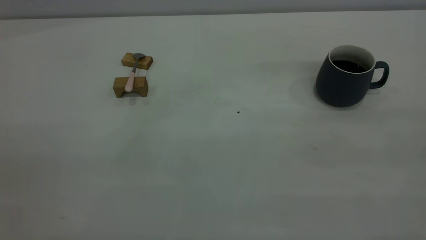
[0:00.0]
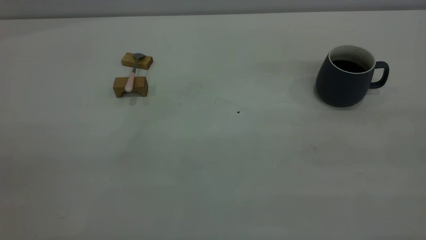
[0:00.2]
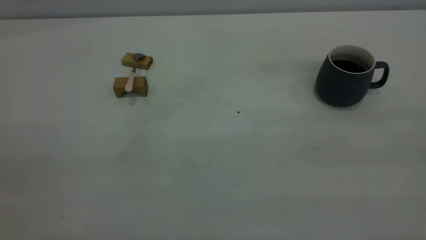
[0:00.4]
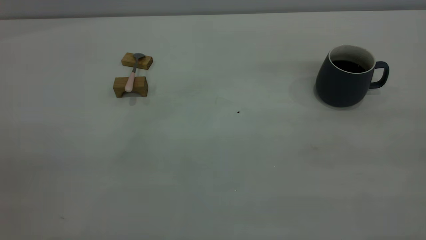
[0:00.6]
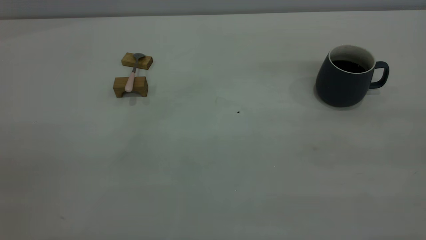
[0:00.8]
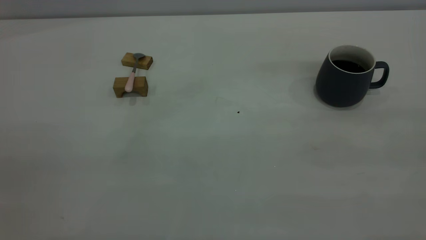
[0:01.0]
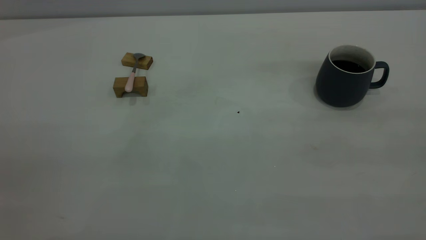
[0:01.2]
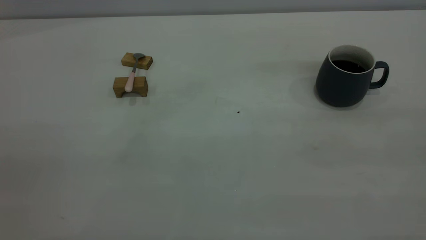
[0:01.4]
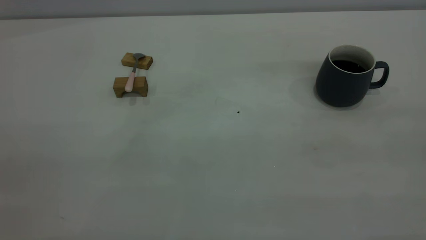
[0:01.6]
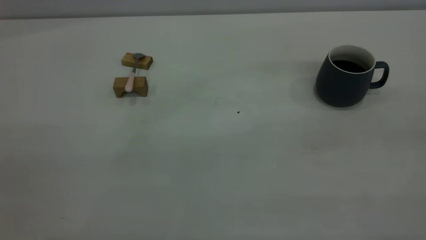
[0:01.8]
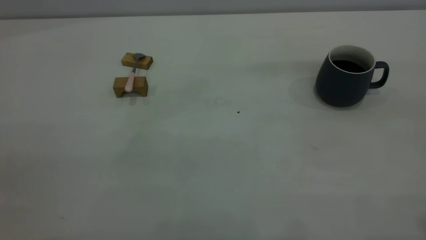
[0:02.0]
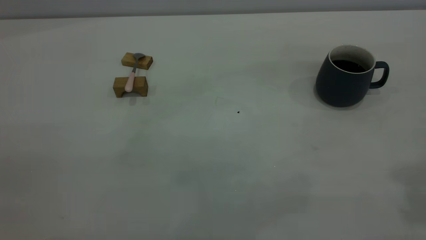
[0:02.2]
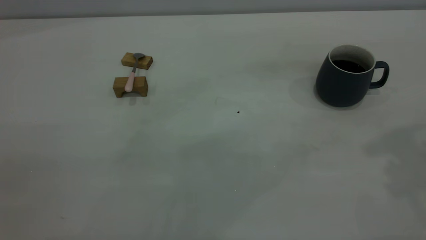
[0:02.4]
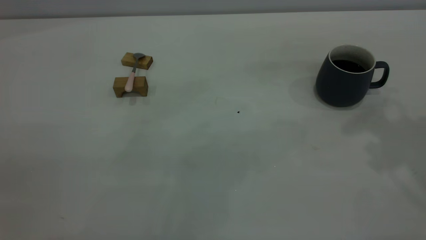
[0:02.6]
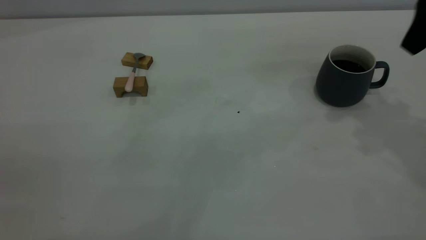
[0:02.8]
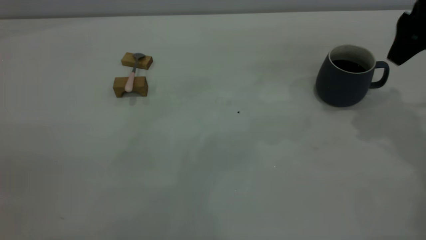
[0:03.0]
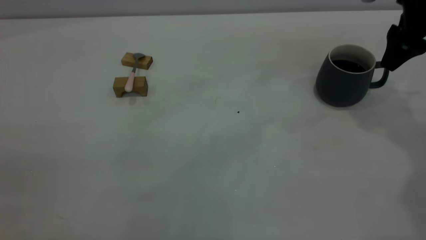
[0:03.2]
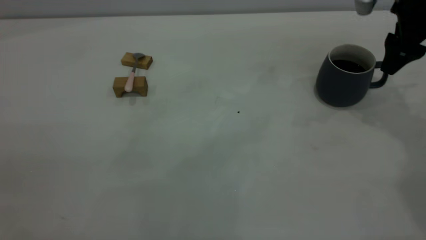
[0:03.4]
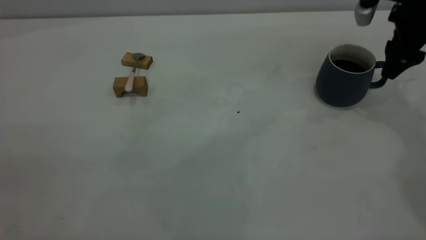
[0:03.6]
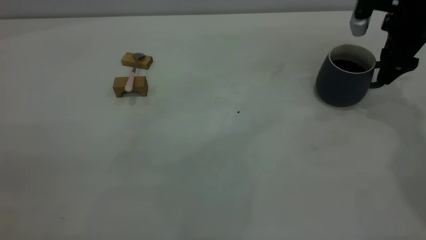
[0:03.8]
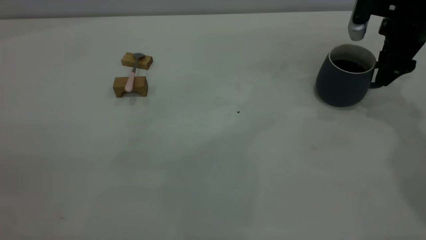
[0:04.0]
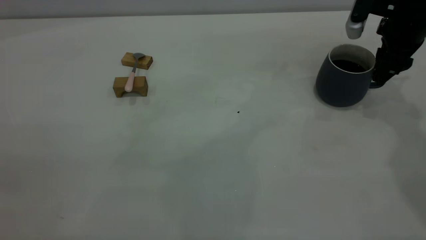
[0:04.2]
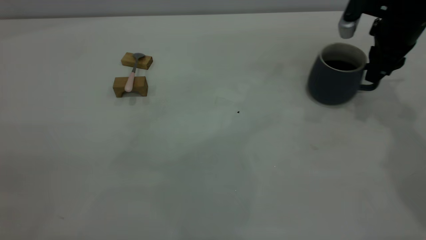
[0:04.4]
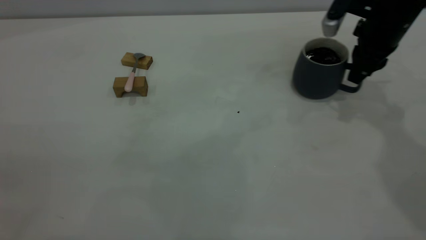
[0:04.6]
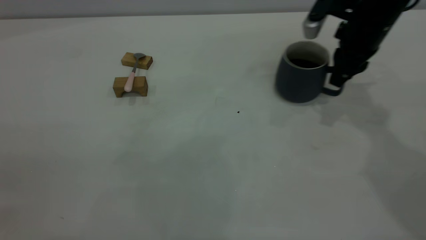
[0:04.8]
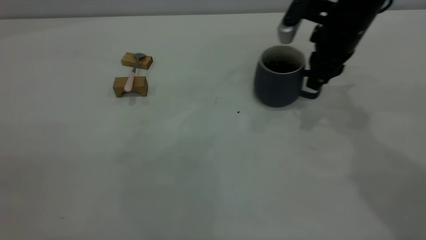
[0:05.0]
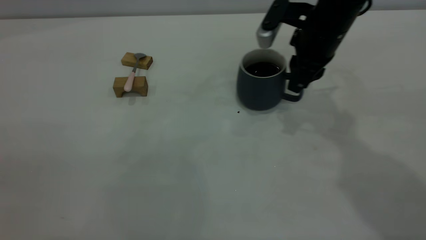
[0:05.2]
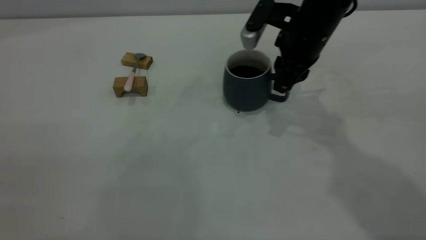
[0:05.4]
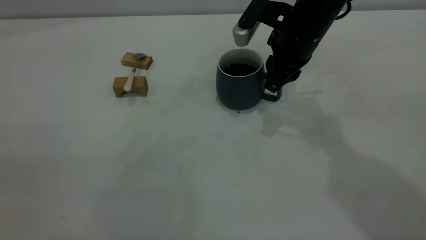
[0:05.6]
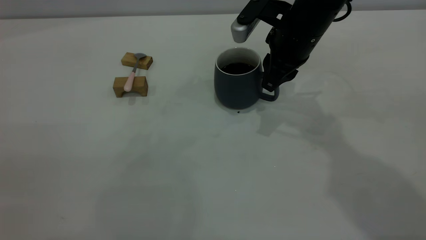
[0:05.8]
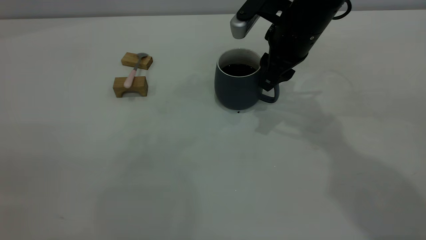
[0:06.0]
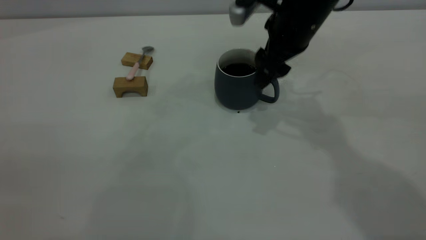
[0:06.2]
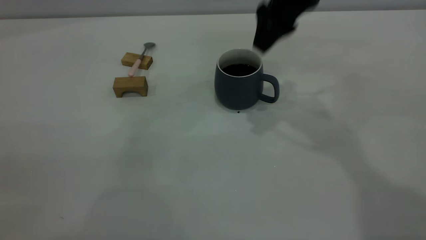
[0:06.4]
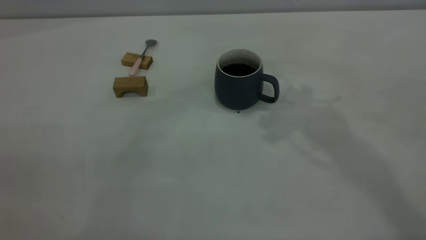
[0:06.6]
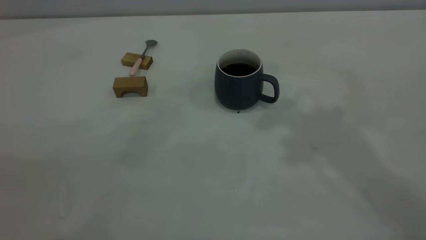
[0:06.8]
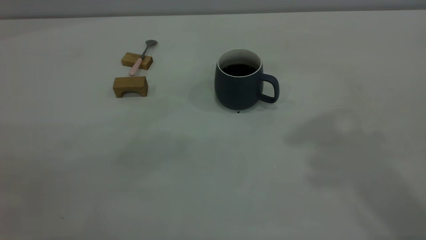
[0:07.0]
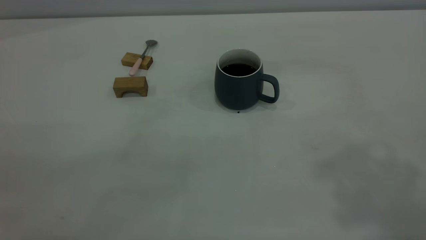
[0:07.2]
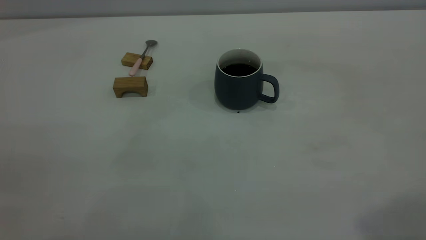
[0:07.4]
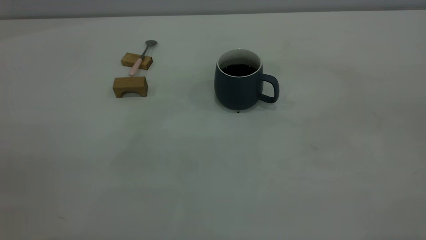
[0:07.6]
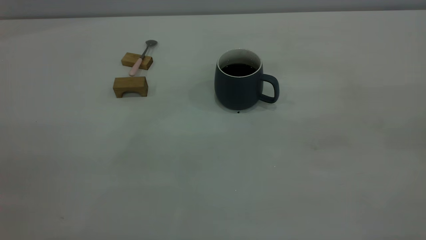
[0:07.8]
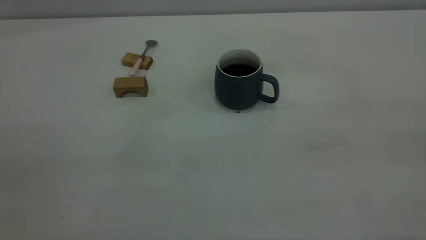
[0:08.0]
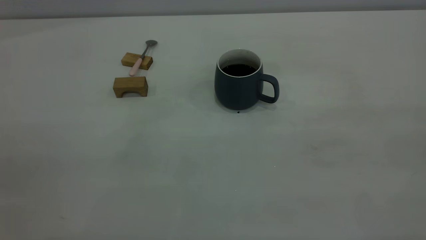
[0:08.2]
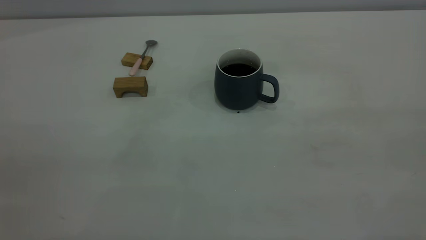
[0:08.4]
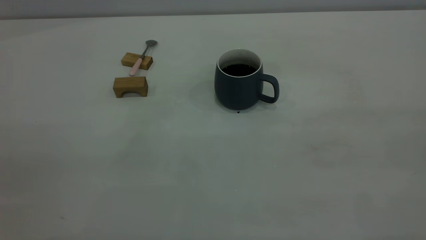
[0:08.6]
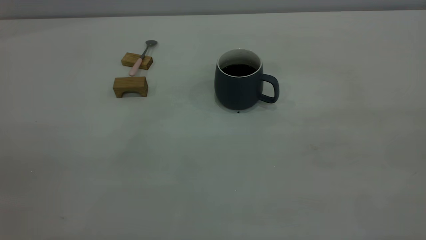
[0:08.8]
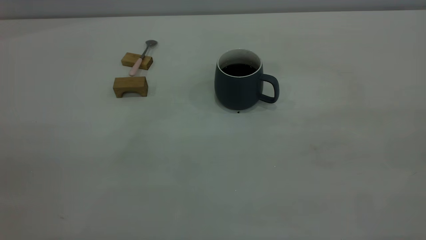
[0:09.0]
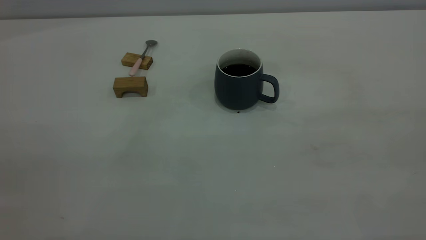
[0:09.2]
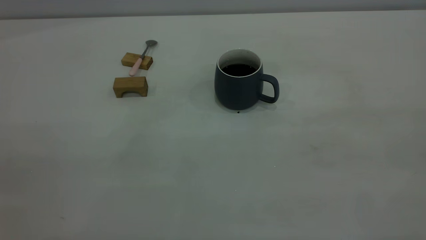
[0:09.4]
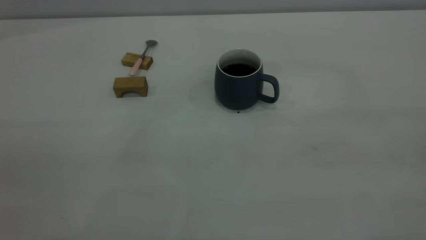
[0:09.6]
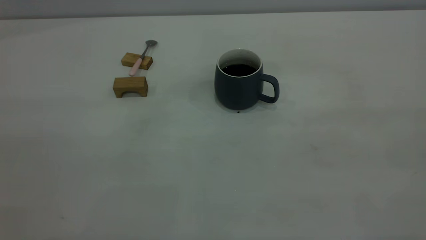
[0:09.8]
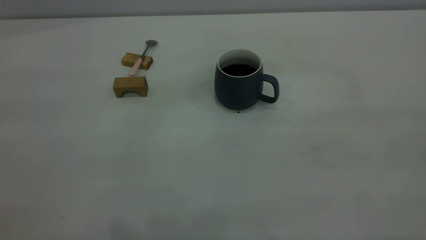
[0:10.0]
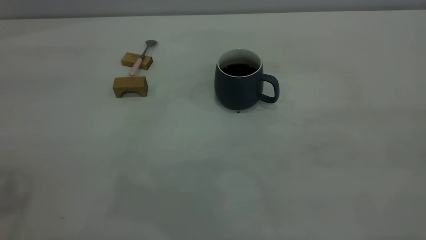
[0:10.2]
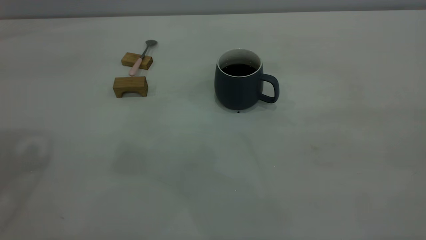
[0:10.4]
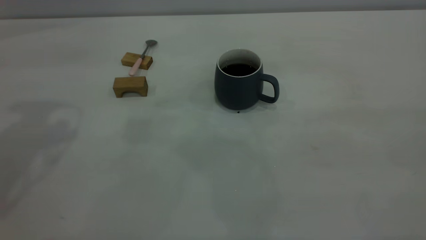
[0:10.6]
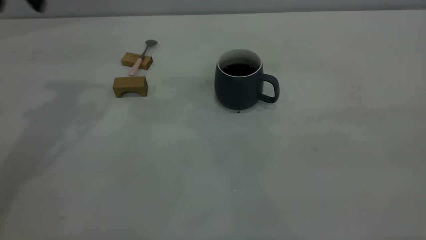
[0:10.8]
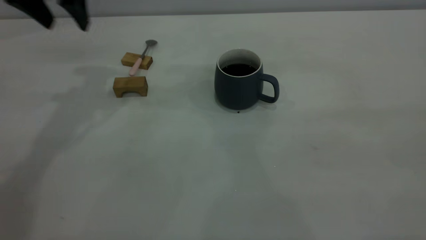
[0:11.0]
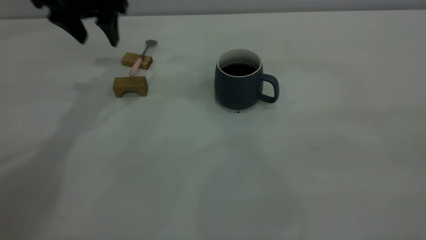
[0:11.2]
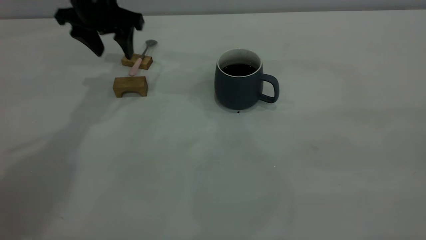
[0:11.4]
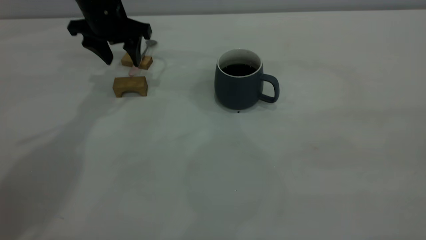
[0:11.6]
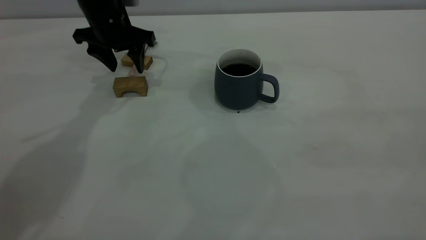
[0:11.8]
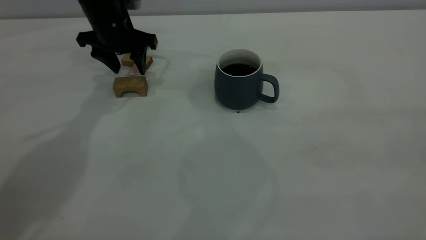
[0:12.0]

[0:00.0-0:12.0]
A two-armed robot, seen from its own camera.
Step, 0:00.0 to 0:06.2: Move the cup with coffee to the center of view.
0:00.0 to 0:01.6: Both grippers stay about where they are.
0:01.6 to 0:03.0: The right gripper moves forward, approximately 35 cm, and opens up.
0:03.0 to 0:04.4: The right gripper is displaced downward and forward by roughly 10 cm, and closes up.
0:04.4 to 0:06.0: The right gripper travels to the left by some 15 cm, and opens its fingers.
0:06.0 to 0:07.6: The right gripper goes about 50 cm backward, upward and to the right, and opens its fingers.
0:10.4 to 0:12.0: The left gripper goes some 35 cm downward, forward and to the right.

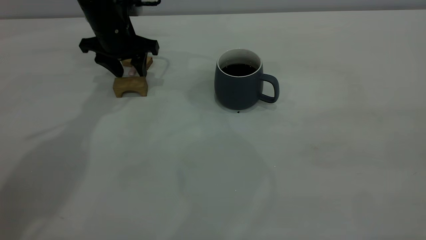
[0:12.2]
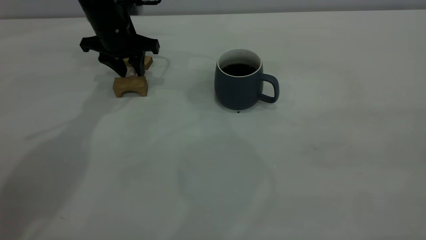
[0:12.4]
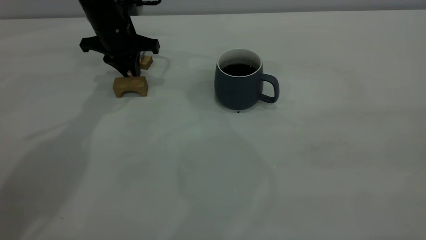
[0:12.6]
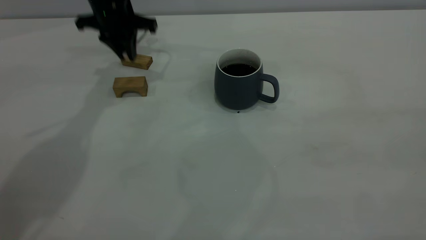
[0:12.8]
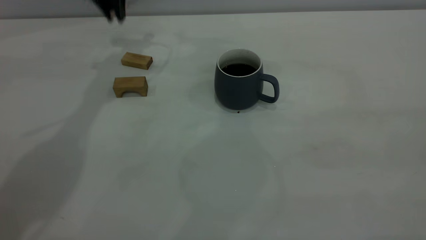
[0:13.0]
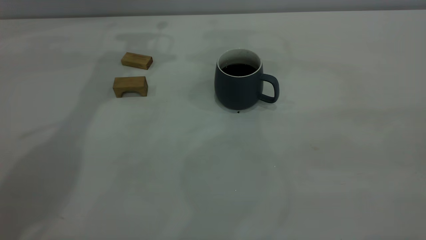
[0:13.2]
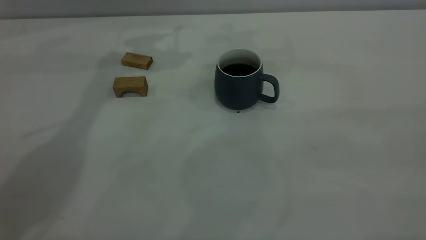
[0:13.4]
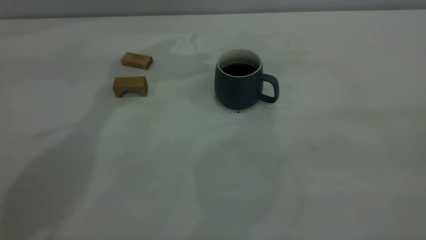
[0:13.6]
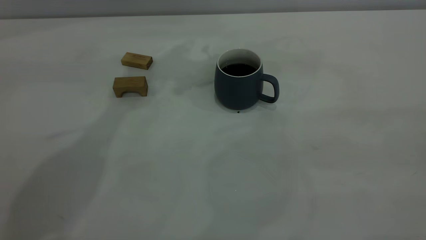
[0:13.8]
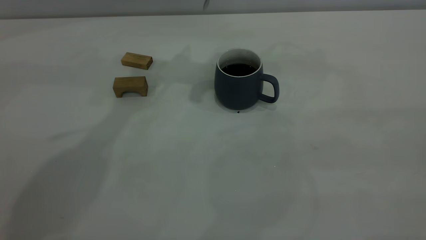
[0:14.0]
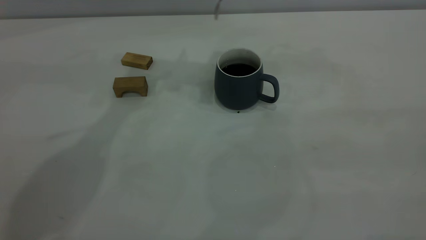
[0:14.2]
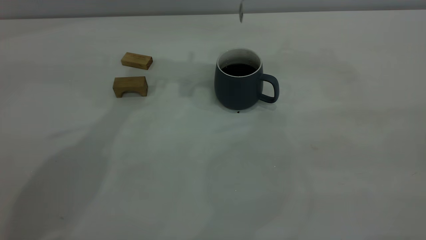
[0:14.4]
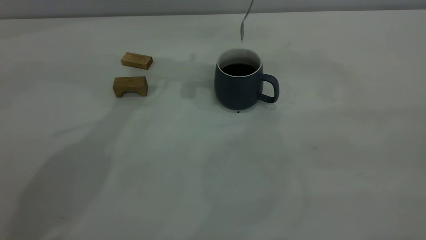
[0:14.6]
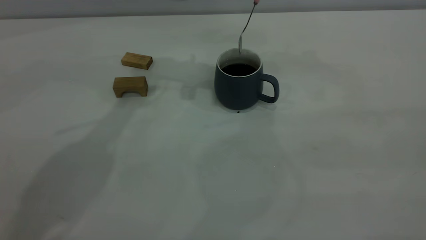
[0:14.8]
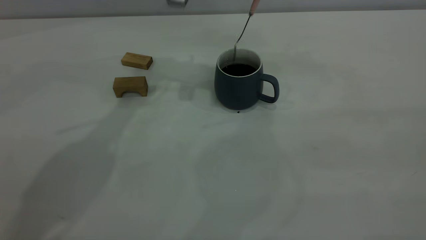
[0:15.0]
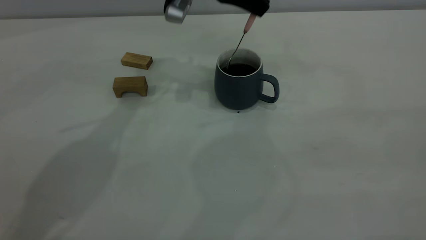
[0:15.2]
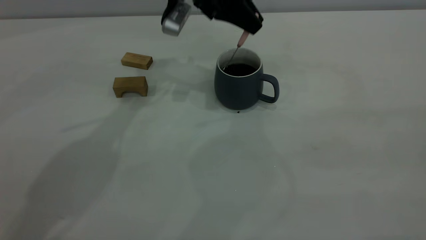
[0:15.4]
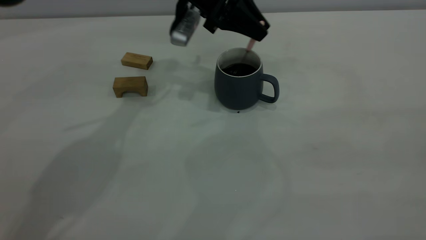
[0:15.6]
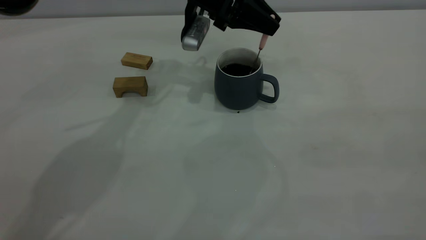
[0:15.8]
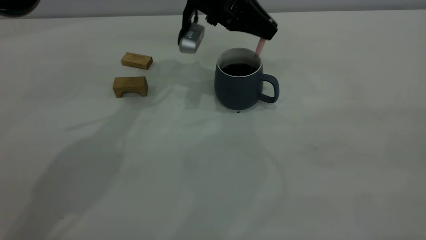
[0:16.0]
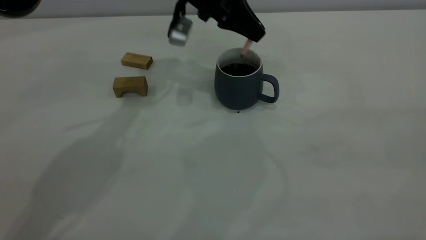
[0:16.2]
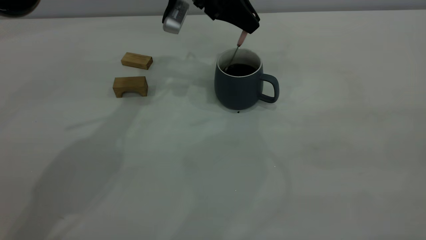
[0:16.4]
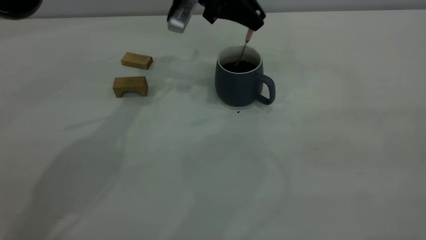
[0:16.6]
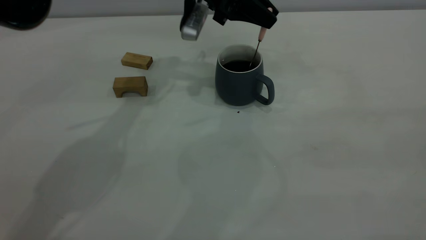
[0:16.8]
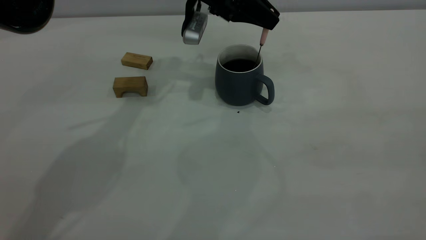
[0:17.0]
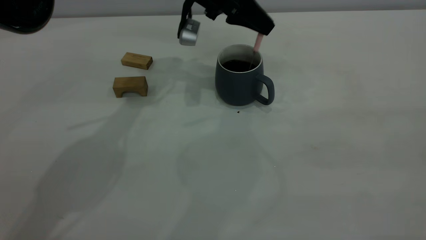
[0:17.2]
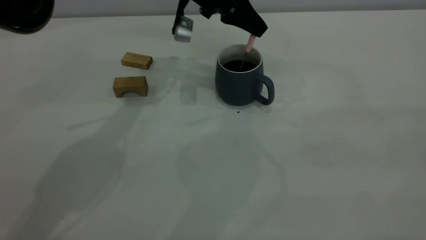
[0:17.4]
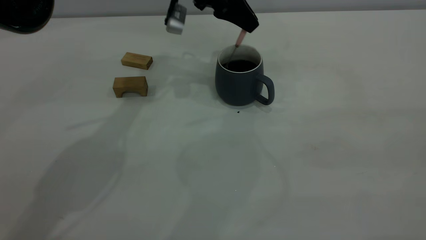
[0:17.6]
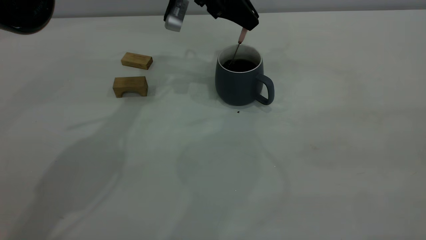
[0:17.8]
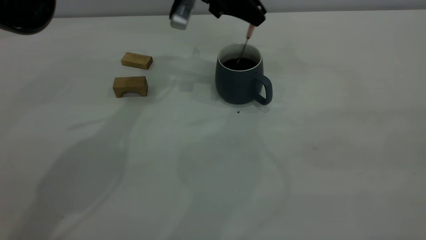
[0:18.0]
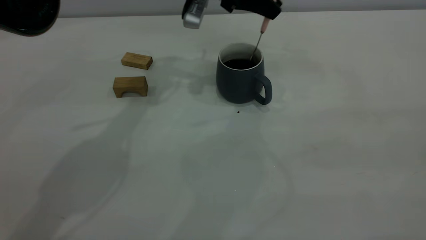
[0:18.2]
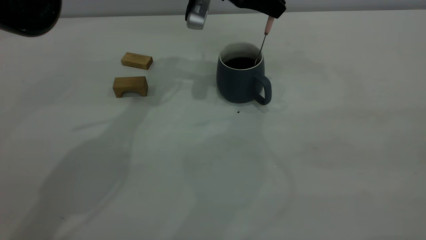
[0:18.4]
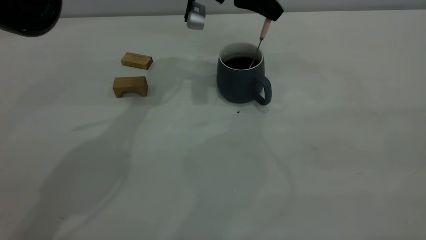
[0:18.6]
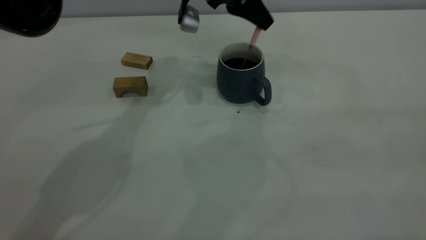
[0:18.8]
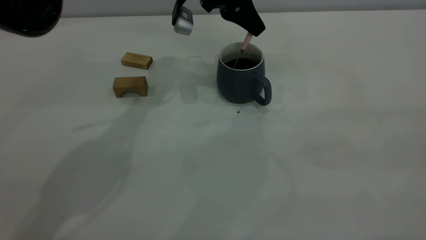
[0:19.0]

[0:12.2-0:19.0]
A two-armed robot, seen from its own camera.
0:12.2 to 0:13.6: The left gripper travels upward and to the right by about 20 cm, and closes.
0:15.0 to 0:16.2: The left gripper goes about 5 cm downward.
0:16.2 to 0:19.0: The grippers make only small movements.
